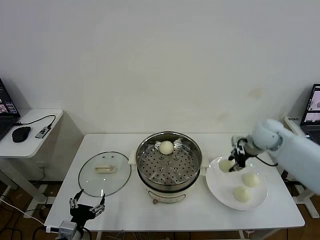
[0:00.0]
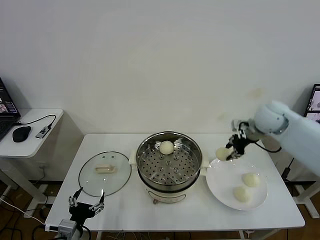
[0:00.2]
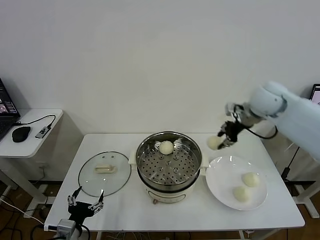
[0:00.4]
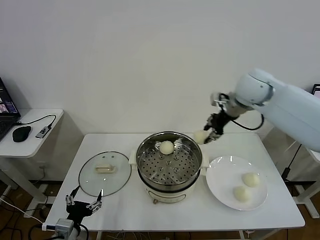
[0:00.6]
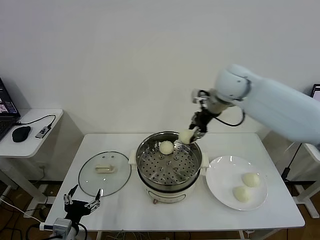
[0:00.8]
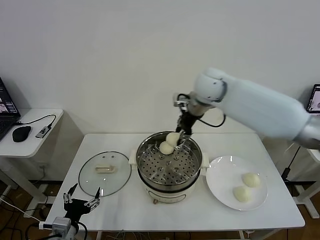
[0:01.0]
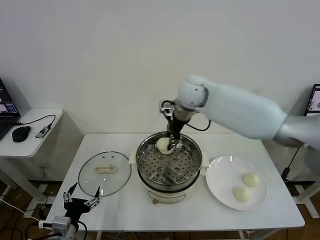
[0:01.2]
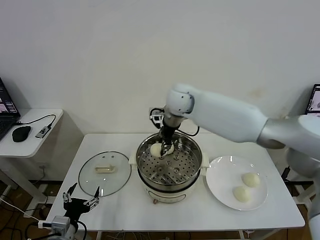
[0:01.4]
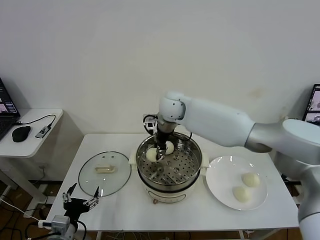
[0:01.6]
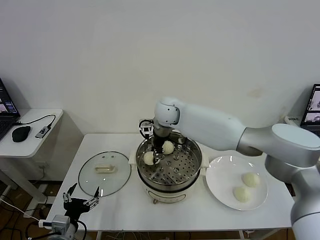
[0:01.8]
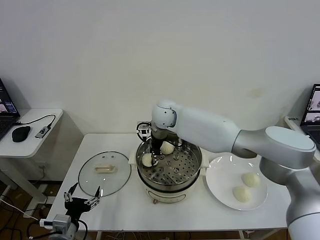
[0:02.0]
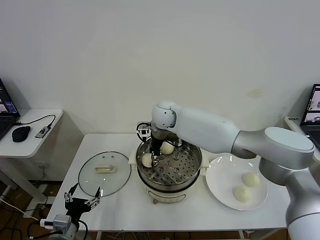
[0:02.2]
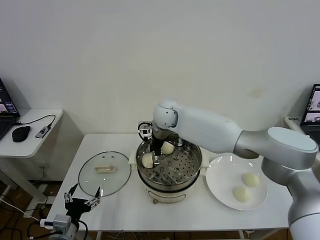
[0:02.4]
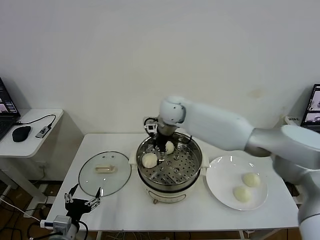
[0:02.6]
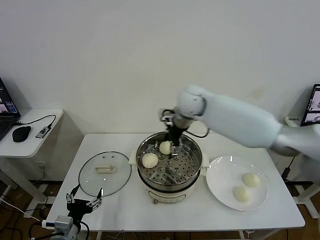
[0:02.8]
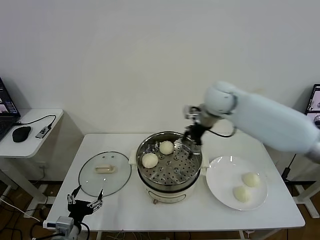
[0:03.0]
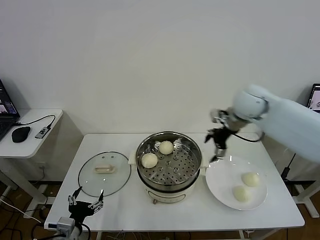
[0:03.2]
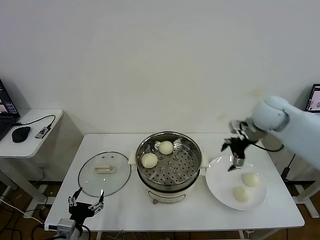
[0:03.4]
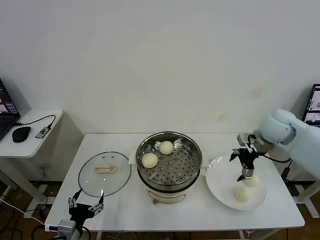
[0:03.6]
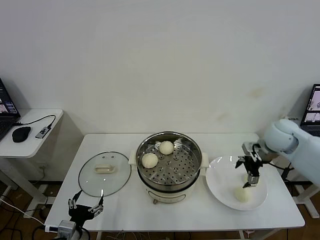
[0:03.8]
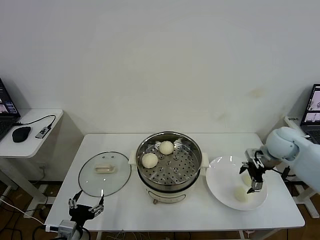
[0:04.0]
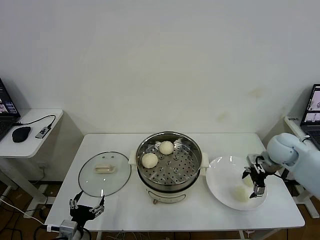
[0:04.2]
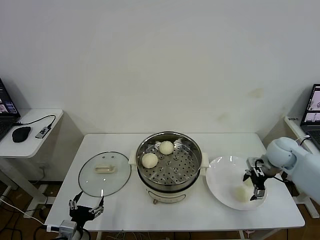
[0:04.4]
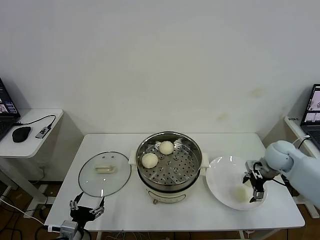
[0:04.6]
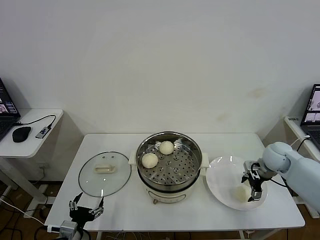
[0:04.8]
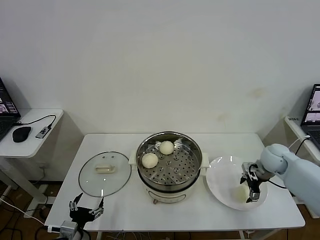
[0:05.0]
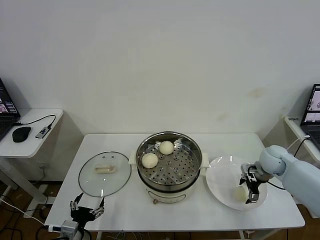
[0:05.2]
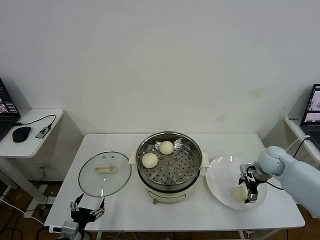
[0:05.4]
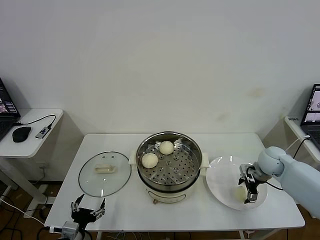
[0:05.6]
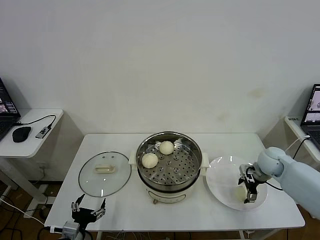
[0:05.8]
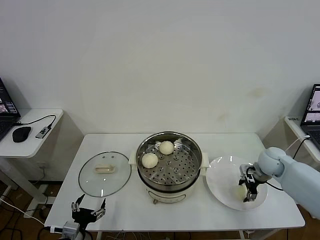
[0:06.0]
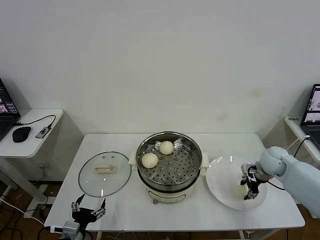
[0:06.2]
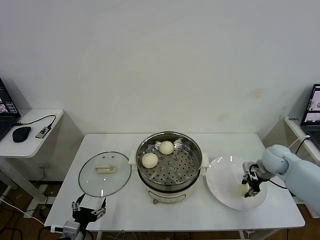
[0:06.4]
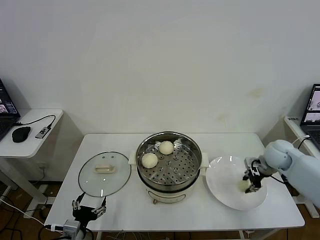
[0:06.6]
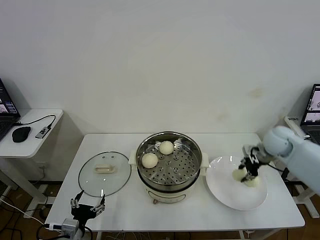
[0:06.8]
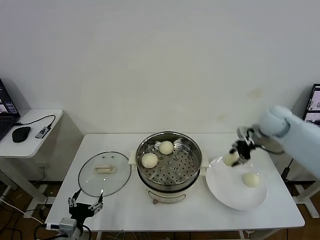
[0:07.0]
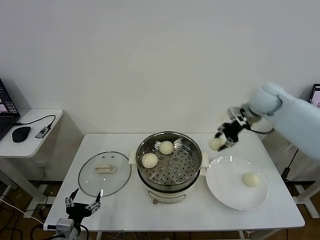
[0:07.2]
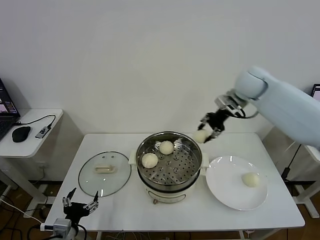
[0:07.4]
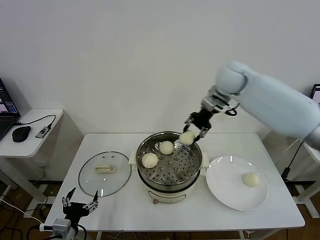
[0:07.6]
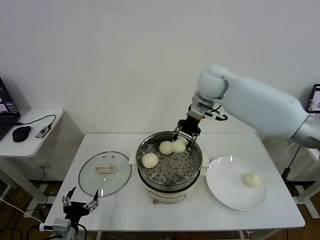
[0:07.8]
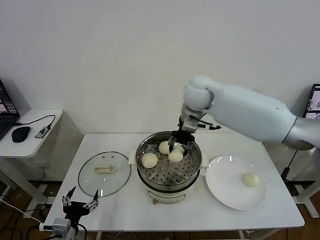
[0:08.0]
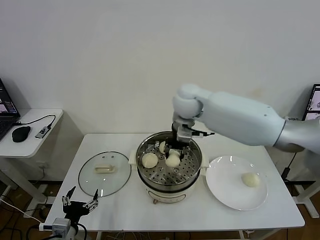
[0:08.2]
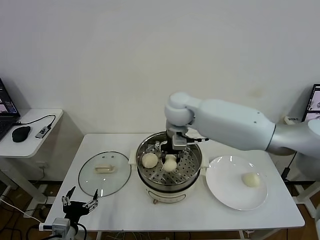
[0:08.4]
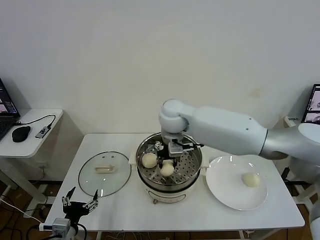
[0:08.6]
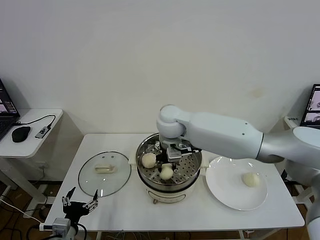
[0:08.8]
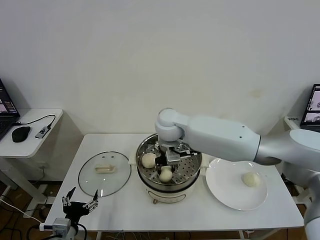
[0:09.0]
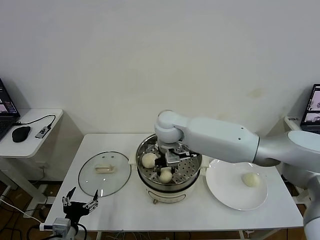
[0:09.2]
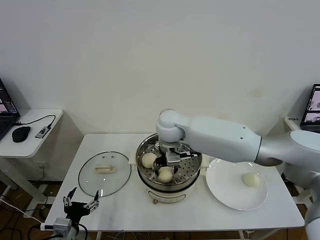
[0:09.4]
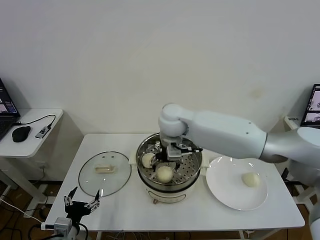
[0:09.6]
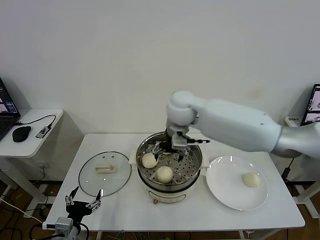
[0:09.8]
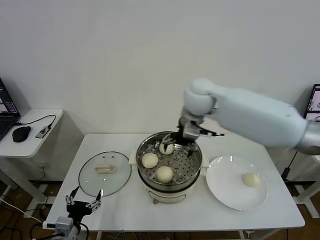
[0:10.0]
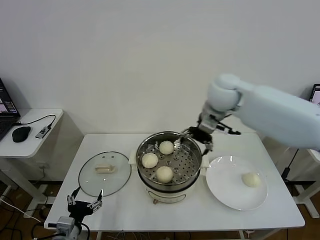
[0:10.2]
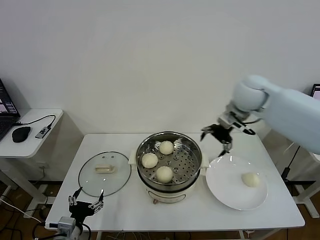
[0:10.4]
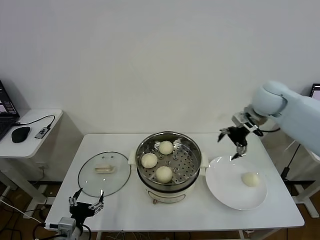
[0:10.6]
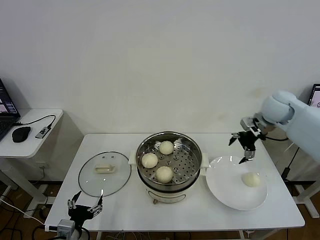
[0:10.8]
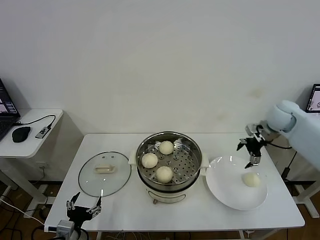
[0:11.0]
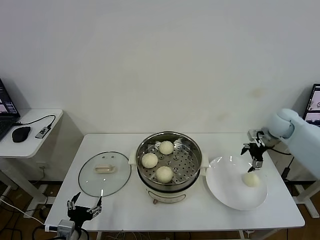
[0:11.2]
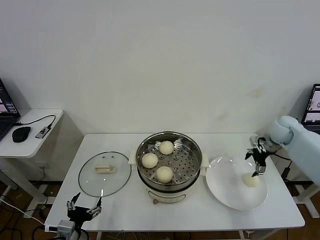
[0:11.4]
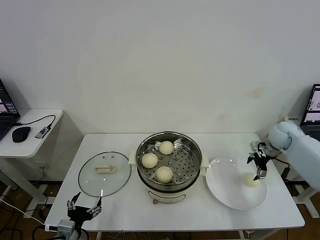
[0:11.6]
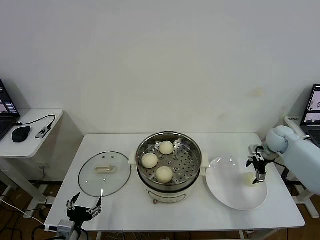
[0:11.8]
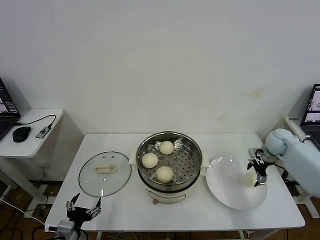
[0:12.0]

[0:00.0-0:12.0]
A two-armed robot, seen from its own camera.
Task of the whole recording: take steamed baozi put them in steamer then cover it.
Step, 0:00.0 to 0:02.4: Place the baozi on the steamer with right gripper.
Step, 0:02.6 to 0:06.4: Grasp the baozi in the plate with right gripper.
Step, 0:06.6 to 0:09.6: Place the baozi on the steamer with right gripper.
0:00.0 to 0:01.6: The right gripper is displaced to the left by roughly 30 cm.
0:01.6 to 0:03.0: The right gripper travels to the right by approximately 20 cm, and opens up.
0:03.0 to 0:04.4: The right gripper travels to the right and downward by approximately 25 cm.
0:04.4 to 0:06.0: The right gripper ends up some 5 cm from where it was, and closes.
0:06.0 to 0:07.6: The right gripper heads upward, to the left and forward, covering roughly 35 cm, and closes its fingers.
0:07.6 to 0:09.0: The right gripper is displaced to the left, downward and backward by about 20 cm.
0:09.0 to 0:10.4: The right gripper shifts about 25 cm to the right, and opens up.
0:10.4 to 0:12.0: The right gripper goes roughly 30 cm downward and to the right.

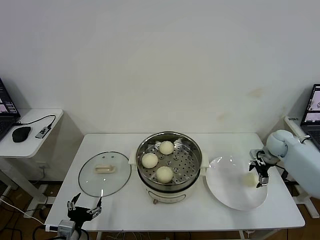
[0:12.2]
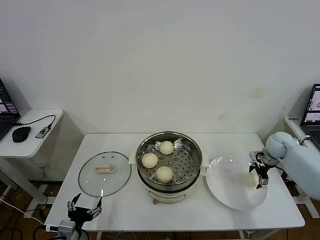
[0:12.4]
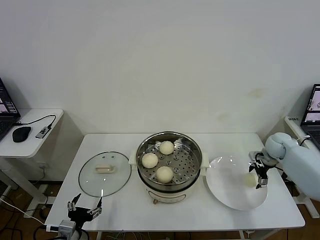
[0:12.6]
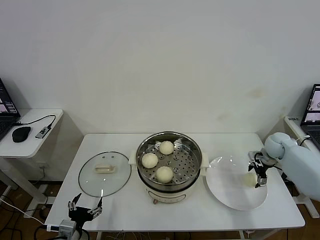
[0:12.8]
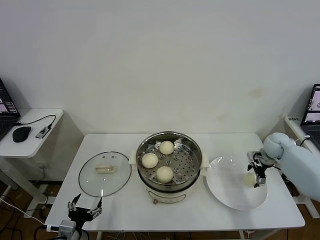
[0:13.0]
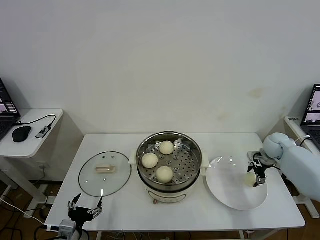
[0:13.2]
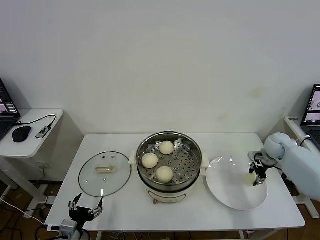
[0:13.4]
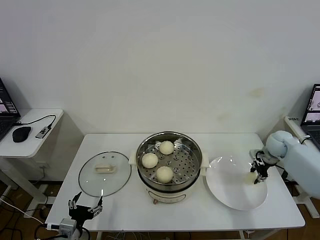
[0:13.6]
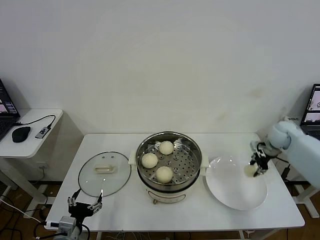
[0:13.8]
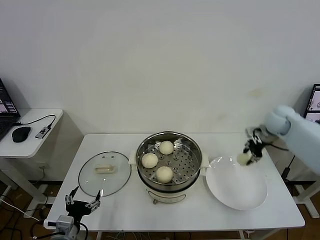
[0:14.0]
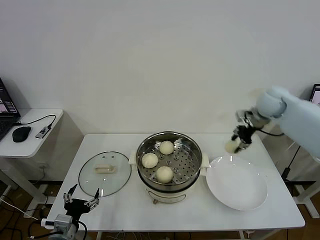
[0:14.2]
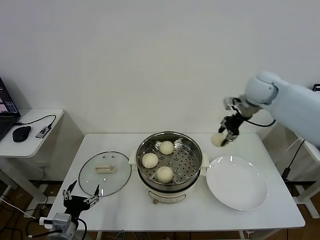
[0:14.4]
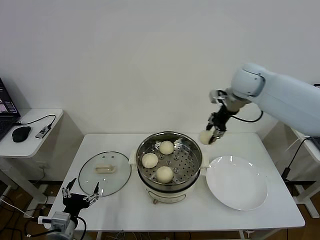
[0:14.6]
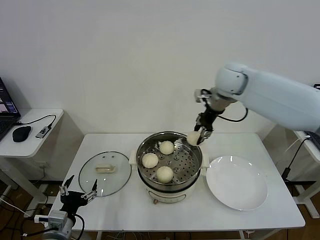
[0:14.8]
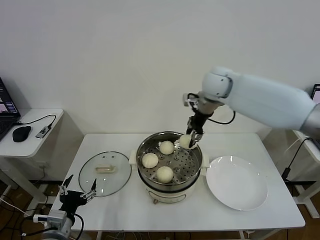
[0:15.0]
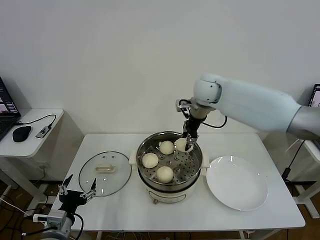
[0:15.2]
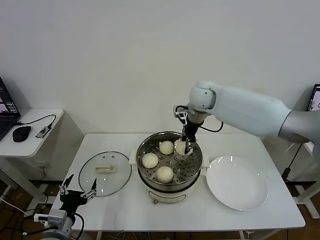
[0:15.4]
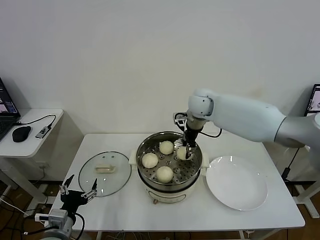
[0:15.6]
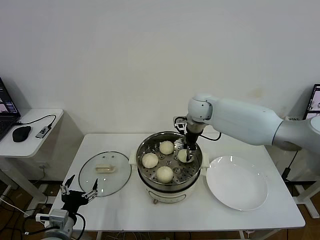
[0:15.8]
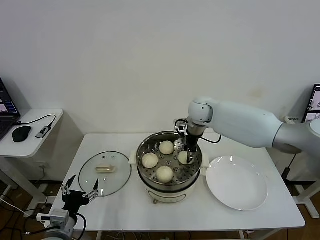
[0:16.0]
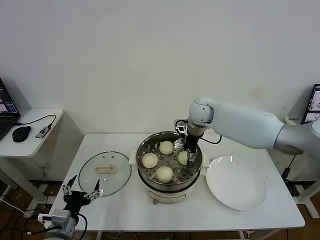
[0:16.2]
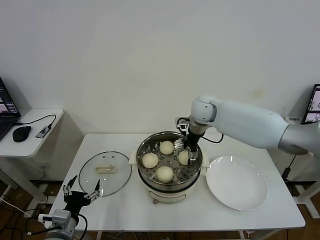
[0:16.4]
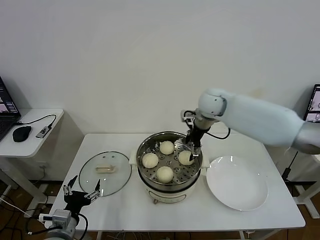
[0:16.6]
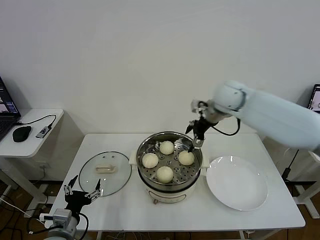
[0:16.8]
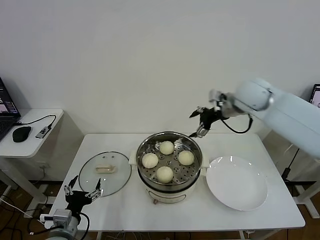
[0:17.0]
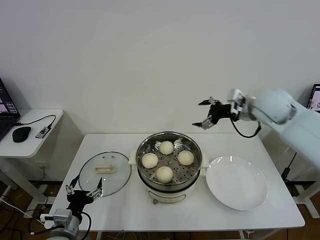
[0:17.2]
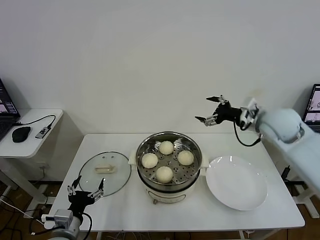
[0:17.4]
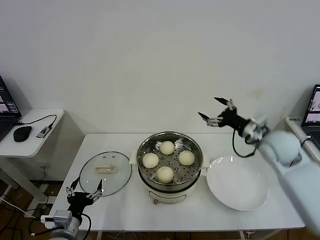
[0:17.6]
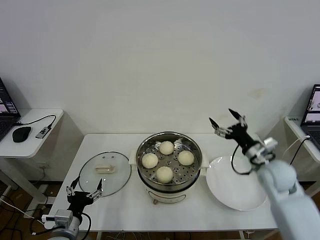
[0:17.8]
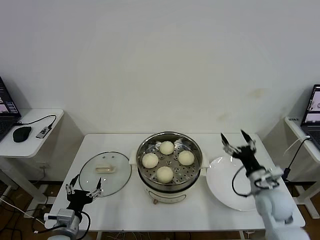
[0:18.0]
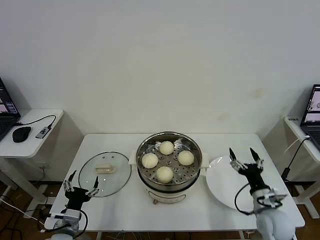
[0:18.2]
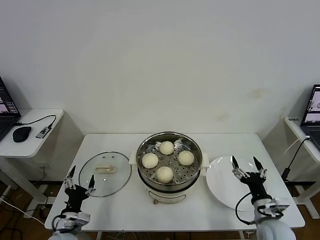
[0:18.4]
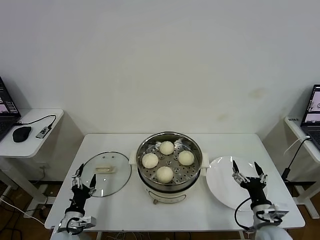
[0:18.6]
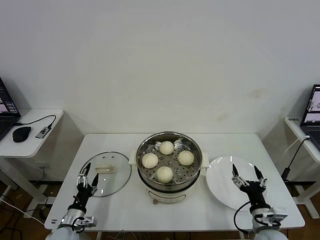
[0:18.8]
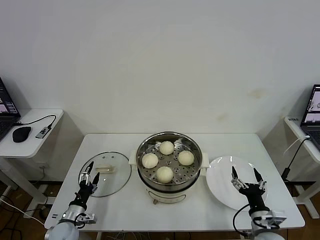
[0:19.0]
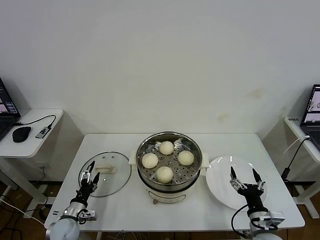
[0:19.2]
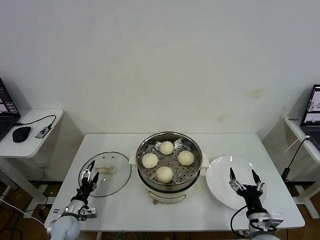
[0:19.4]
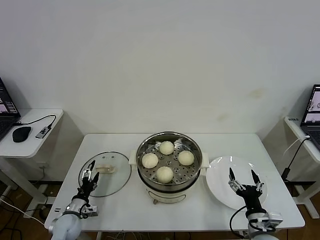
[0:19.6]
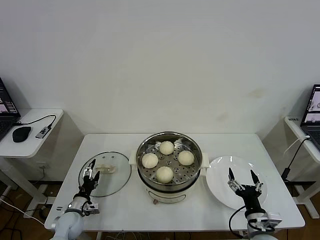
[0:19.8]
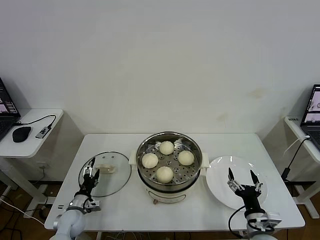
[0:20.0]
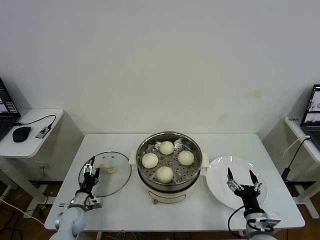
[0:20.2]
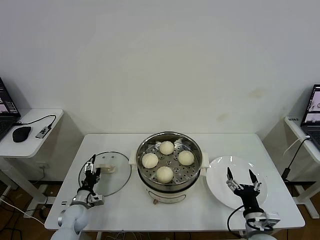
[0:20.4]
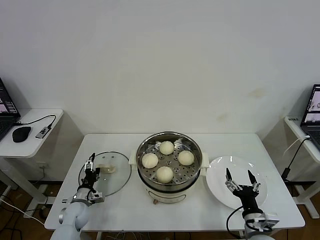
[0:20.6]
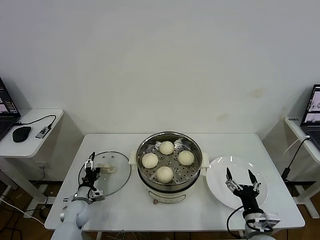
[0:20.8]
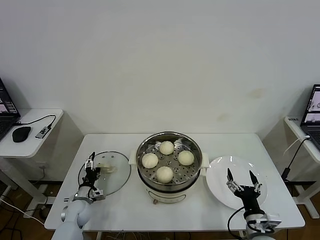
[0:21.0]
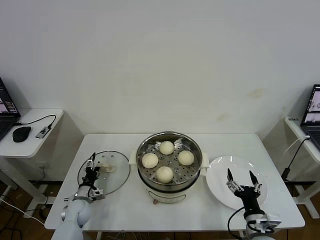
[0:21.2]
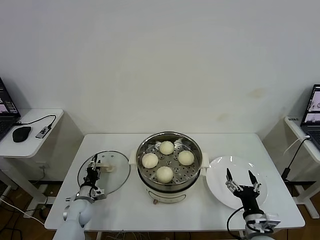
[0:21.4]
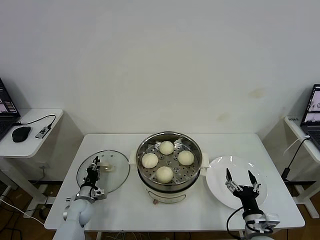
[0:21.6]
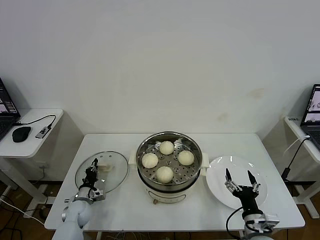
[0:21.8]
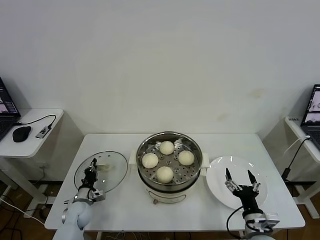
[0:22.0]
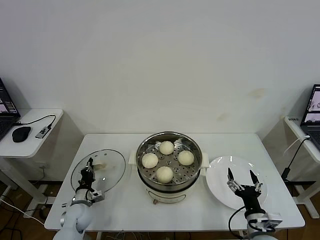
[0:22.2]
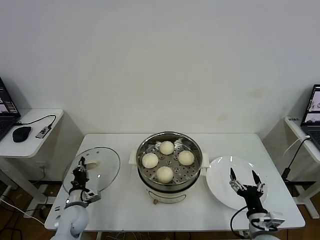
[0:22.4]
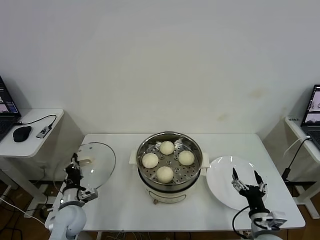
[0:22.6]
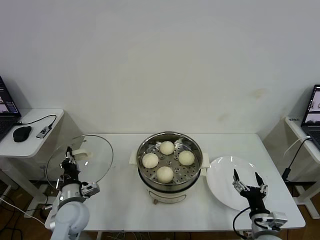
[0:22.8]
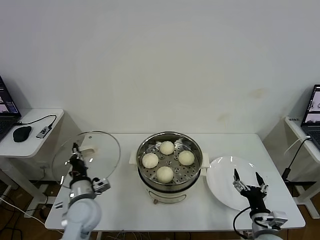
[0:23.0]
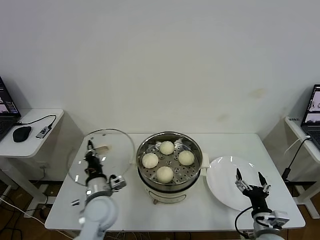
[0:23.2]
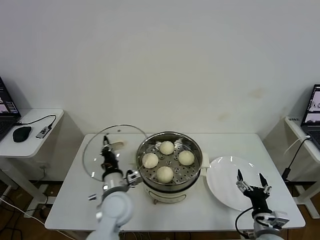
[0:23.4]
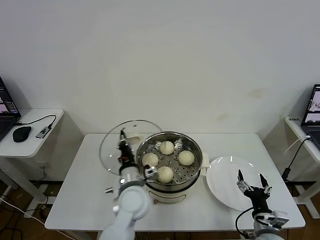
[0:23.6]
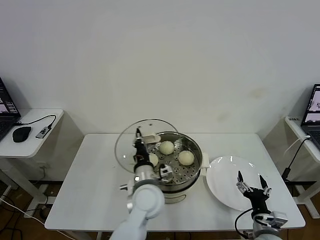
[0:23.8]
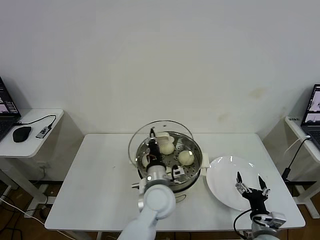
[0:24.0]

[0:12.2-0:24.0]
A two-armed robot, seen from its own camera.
Task of the whole recording: take steamed baozi put them in steamer then cover it.
Step, 0:13.8 to 0:16.6: Place the baozi on the steamer with right gripper.
Step, 0:16.8 to 0:22.0: Grasp the pot lid with left gripper.
0:13.6 to 0:15.2: The left gripper moves upward, roughly 5 cm. The right gripper heads to the left and upward, covering roughly 35 cm.
0:15.2 to 0:16.6: The right gripper opens.
0:16.6 to 0:18.2: The right gripper is displaced backward, downward and to the right by about 40 cm.
0:18.2 to 0:19.6: The right gripper heads backward, covering about 5 cm. Meanwhile the left gripper heads downward, forward and to the left, covering some 15 cm.
0:19.6 to 0:21.0: The left gripper travels forward by approximately 5 cm.
0:21.0 to 0:22.6: The left gripper moves upward and backward, approximately 10 cm, and closes.
0:22.6 to 0:24.0: The left gripper heads to the right, covering approximately 30 cm.
